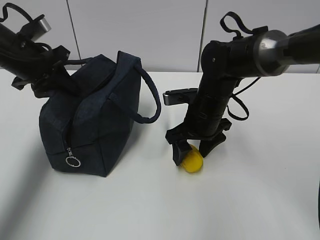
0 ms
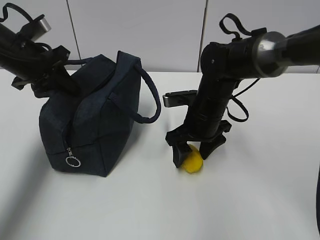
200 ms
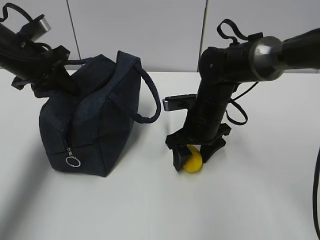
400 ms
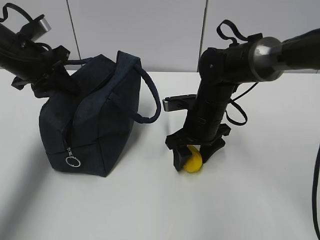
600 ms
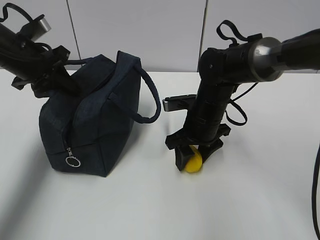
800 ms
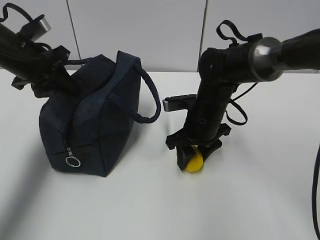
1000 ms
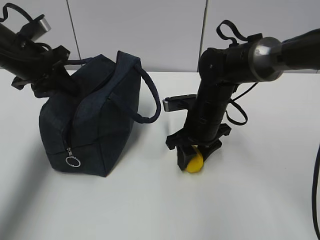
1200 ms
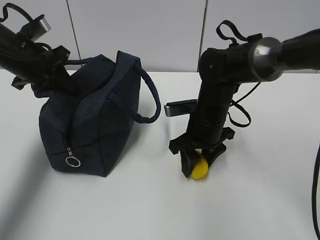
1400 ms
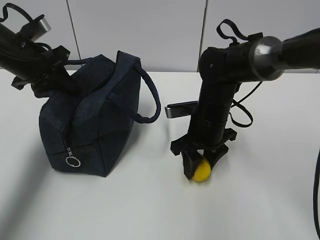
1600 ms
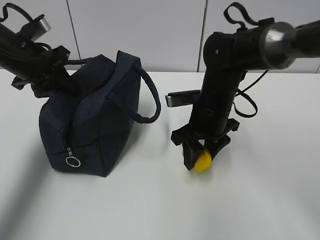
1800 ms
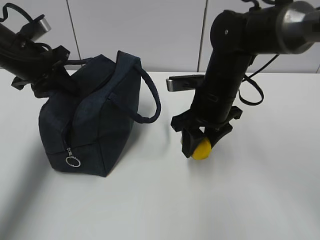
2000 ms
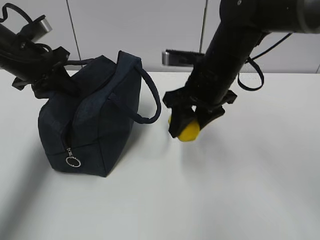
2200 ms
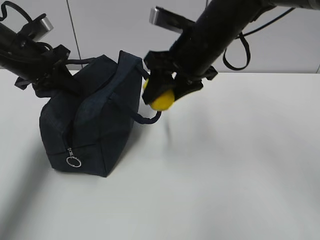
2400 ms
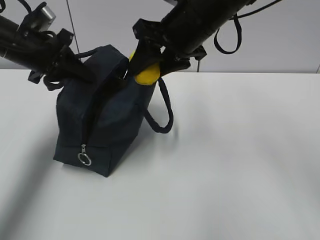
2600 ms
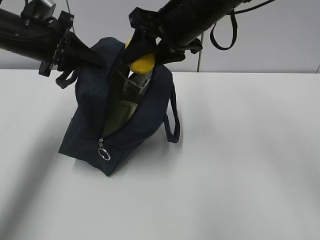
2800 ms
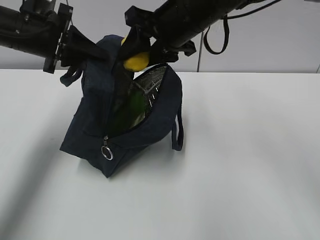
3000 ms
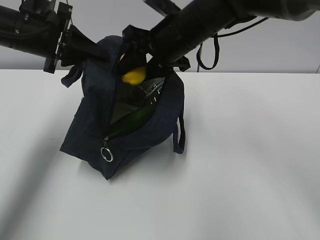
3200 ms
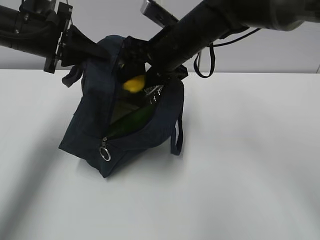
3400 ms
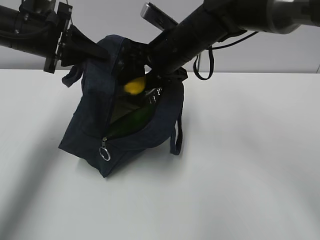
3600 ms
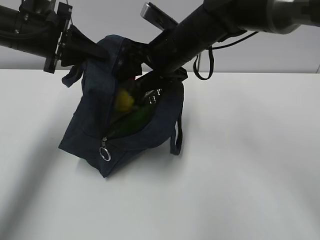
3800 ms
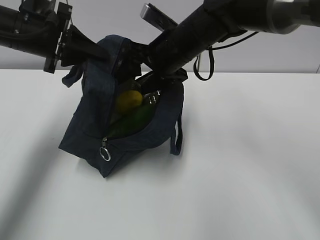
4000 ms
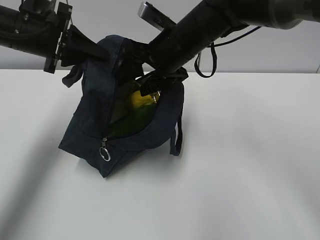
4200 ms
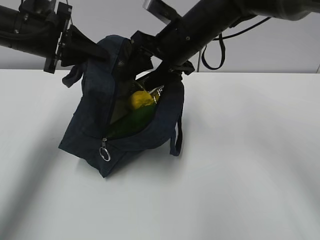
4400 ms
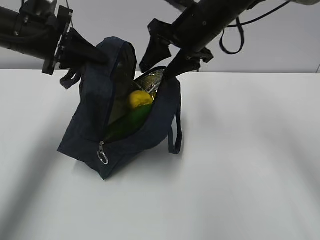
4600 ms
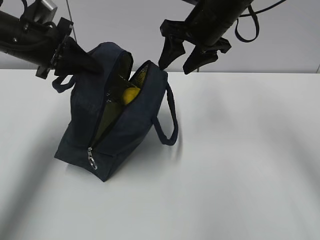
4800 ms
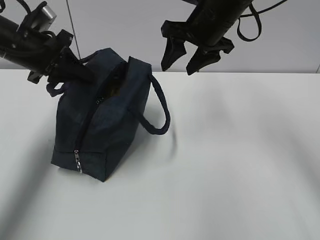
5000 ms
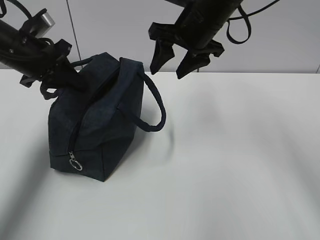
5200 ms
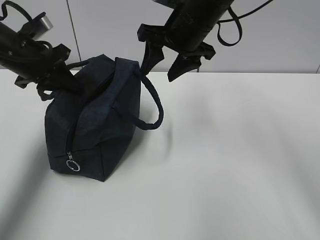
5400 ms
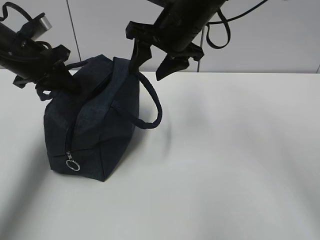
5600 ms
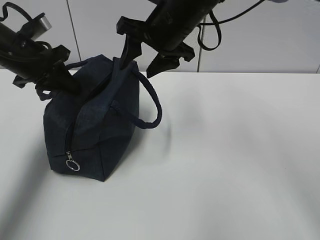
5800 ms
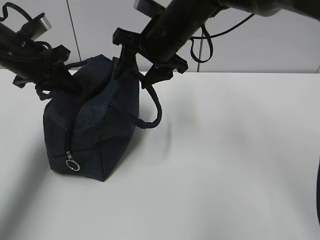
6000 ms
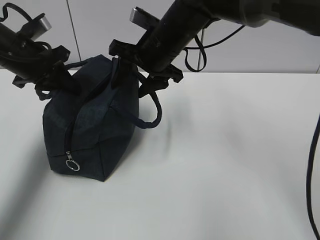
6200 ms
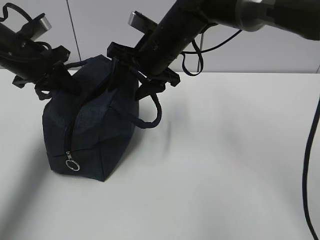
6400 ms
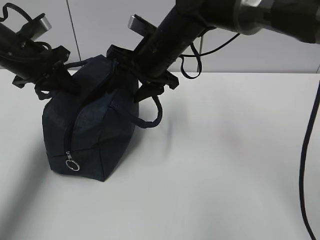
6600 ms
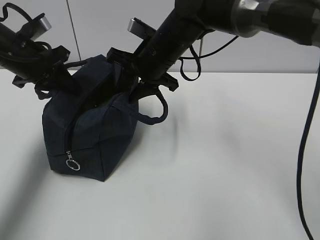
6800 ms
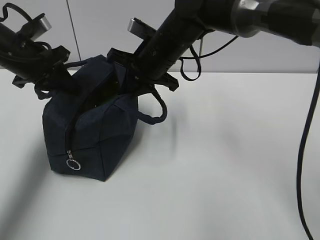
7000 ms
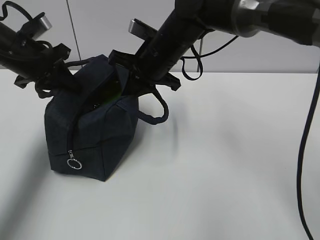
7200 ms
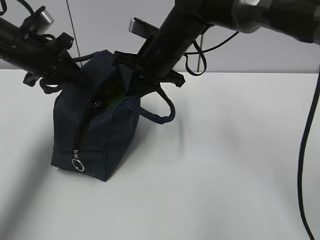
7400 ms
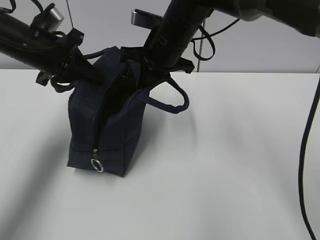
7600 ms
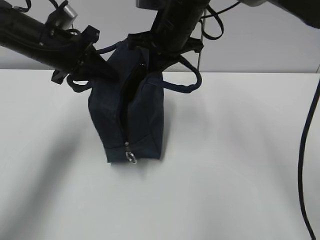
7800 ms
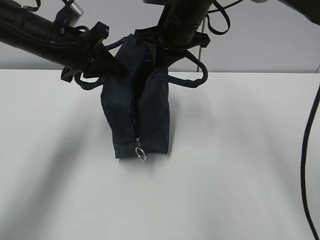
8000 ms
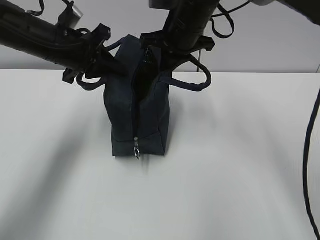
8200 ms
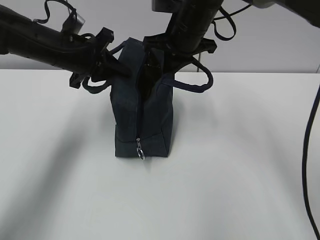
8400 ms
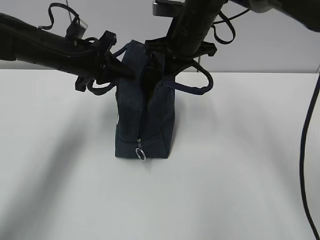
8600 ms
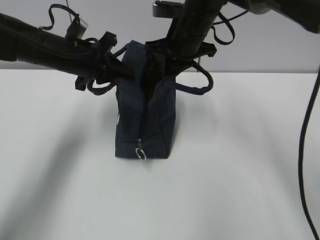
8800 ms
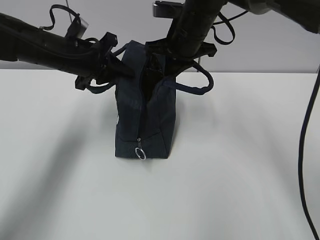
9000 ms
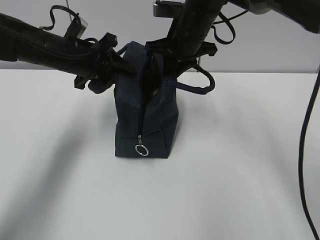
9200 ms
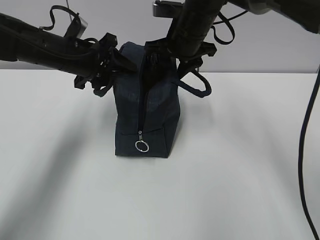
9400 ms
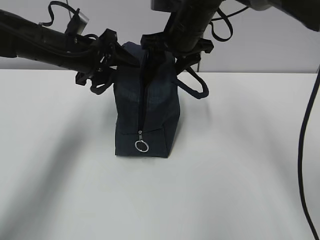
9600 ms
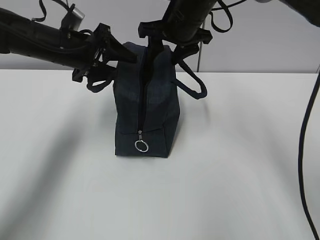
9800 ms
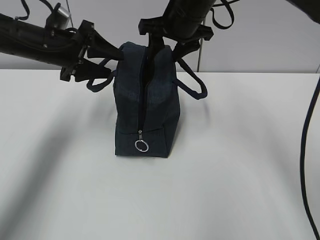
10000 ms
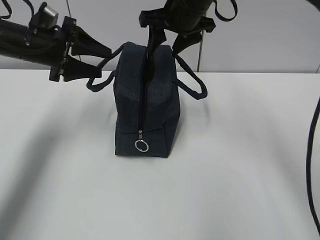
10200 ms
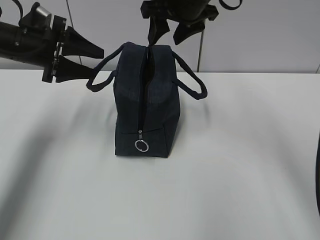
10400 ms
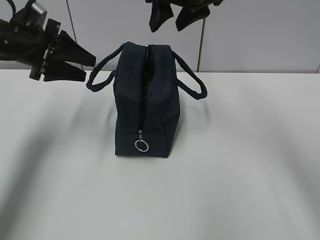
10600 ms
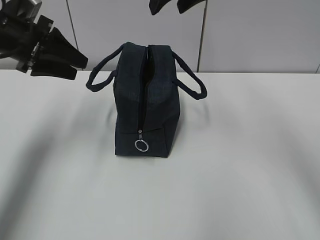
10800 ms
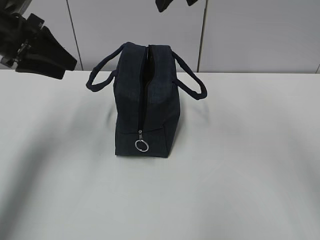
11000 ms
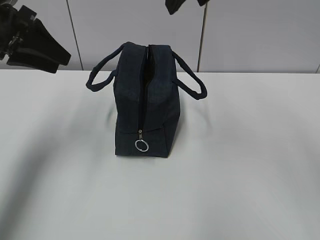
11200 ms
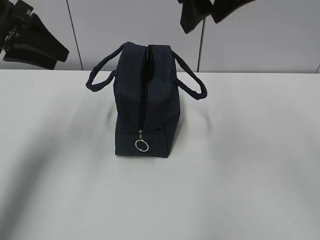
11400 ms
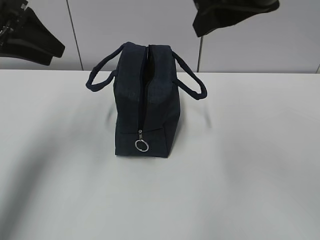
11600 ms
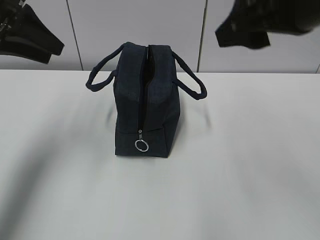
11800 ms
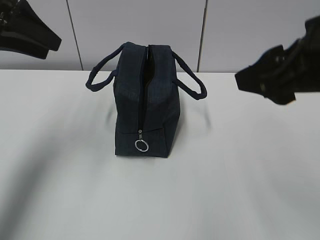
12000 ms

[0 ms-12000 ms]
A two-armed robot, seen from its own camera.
0 ms to 1600 ms: The grippers make only small movements.
1600 ms to 3000 ms: The right gripper heads upward, covering about 20 cm.
6000 ms to 7600 ms: The right gripper closes.
7600 ms to 9000 ms: The left gripper moves about 5 cm.
9000 ms to 10400 ms: The right gripper heads upward, covering some 5 cm, and opens its fingers, while the left gripper shifts roughly 10 cm to the left, and opens up.
10400 ms to 12000 ms: The left gripper travels upward and backward by roughly 10 cm; the right gripper heads backward, covering approximately 25 cm.

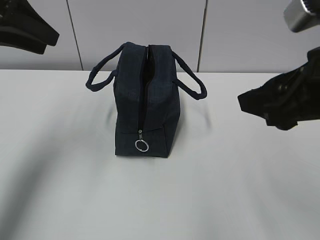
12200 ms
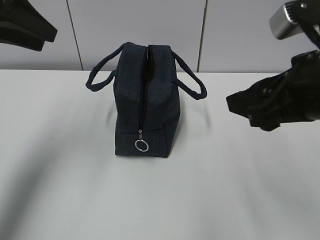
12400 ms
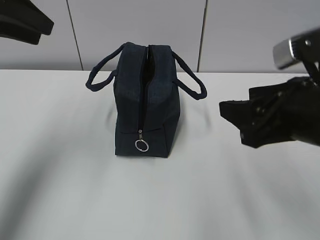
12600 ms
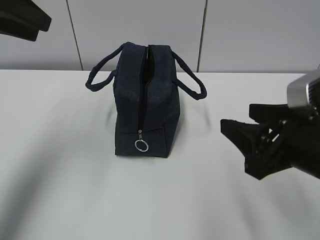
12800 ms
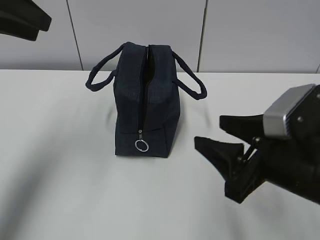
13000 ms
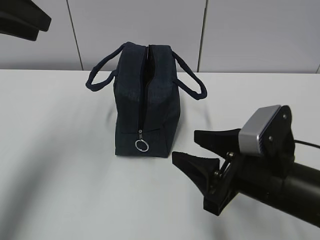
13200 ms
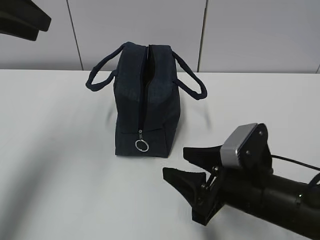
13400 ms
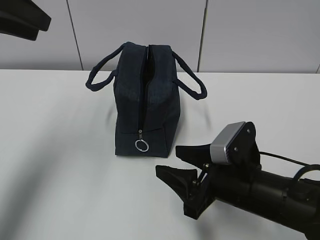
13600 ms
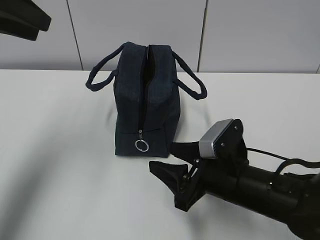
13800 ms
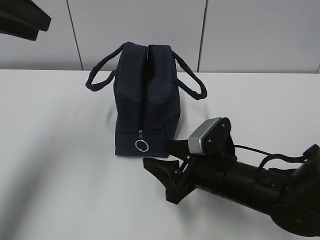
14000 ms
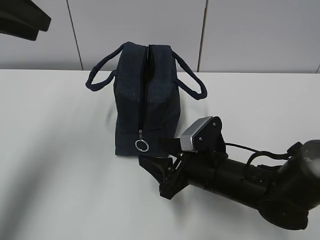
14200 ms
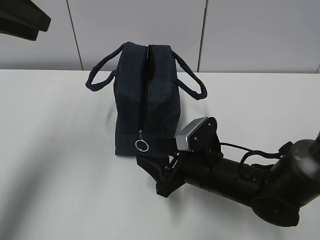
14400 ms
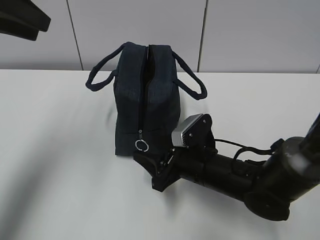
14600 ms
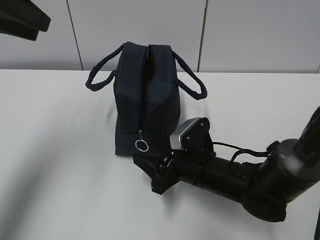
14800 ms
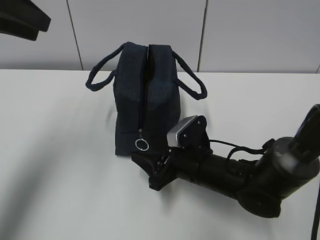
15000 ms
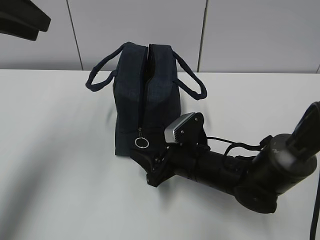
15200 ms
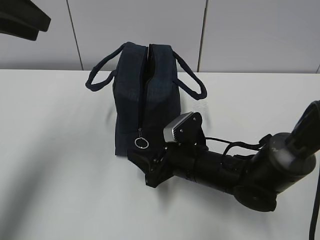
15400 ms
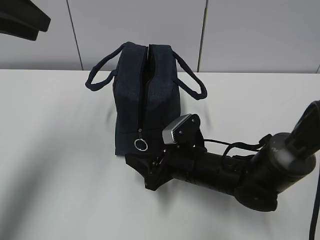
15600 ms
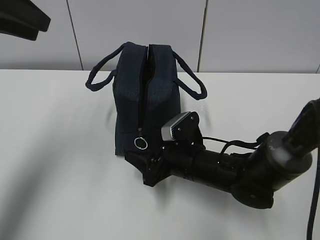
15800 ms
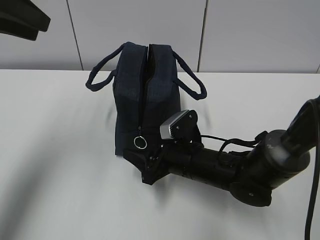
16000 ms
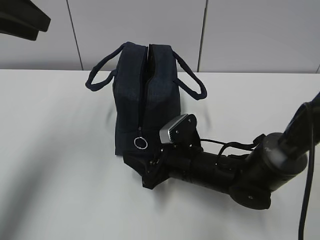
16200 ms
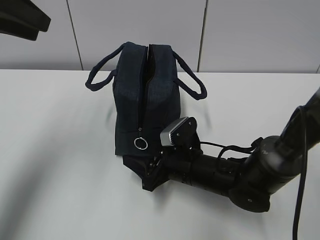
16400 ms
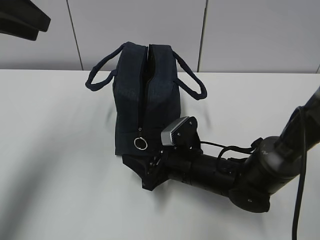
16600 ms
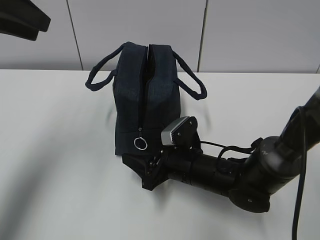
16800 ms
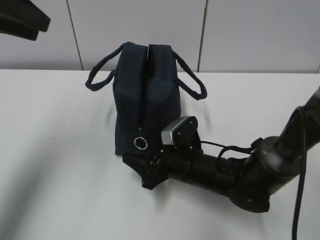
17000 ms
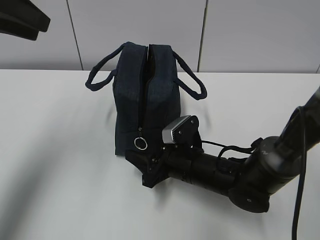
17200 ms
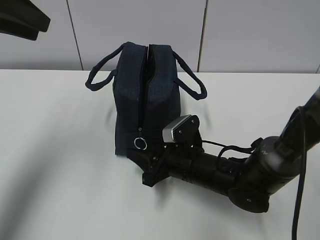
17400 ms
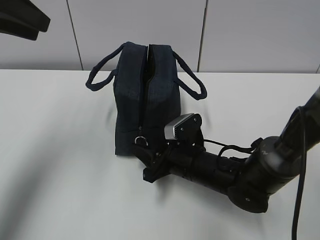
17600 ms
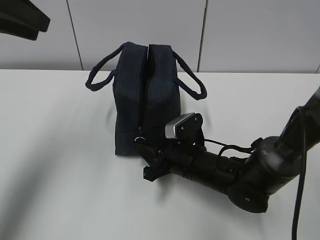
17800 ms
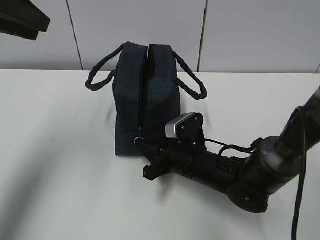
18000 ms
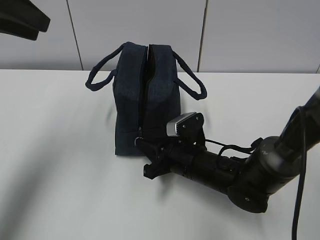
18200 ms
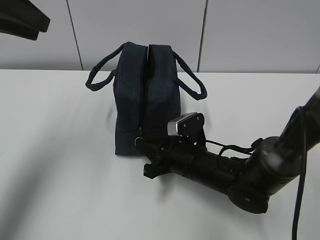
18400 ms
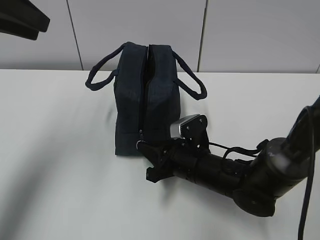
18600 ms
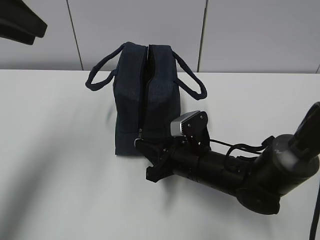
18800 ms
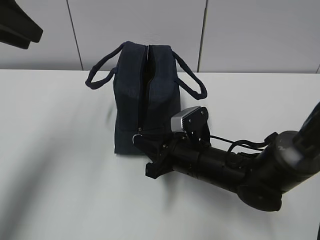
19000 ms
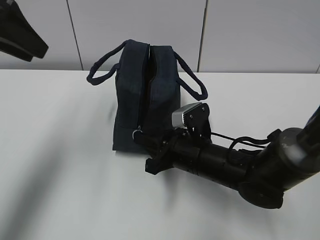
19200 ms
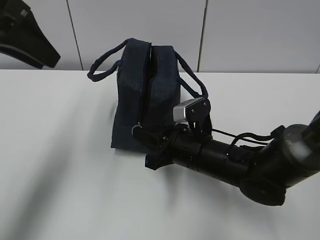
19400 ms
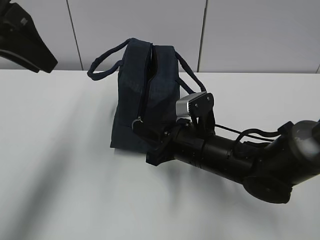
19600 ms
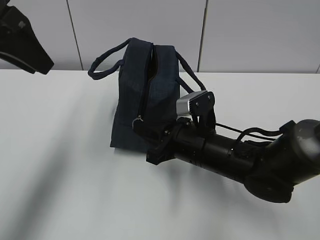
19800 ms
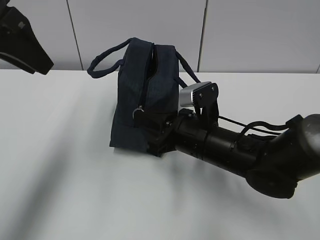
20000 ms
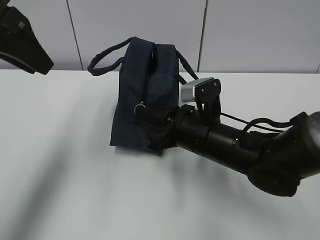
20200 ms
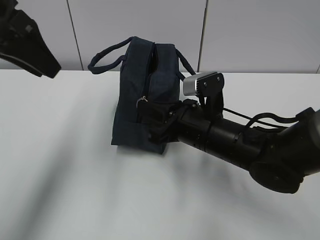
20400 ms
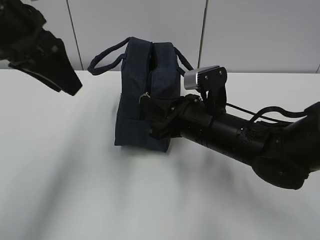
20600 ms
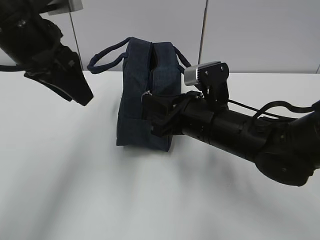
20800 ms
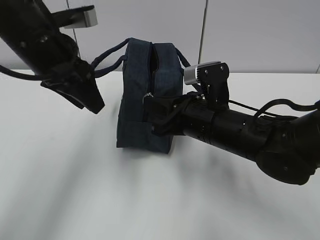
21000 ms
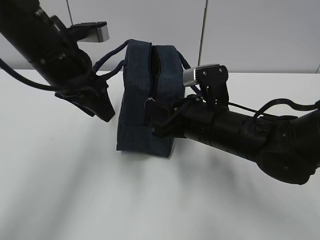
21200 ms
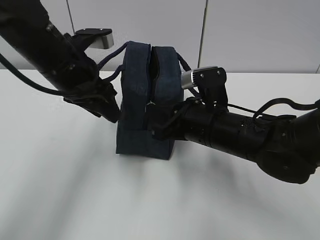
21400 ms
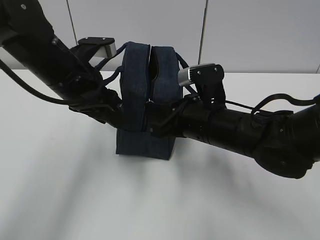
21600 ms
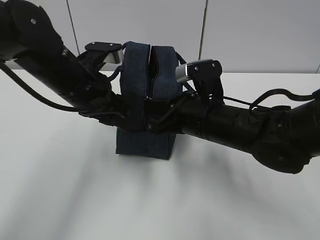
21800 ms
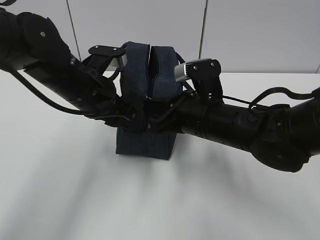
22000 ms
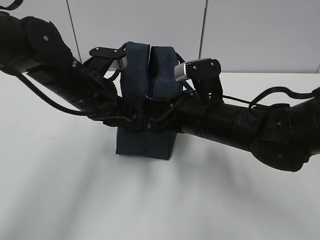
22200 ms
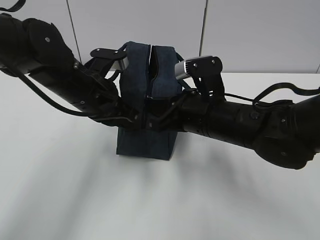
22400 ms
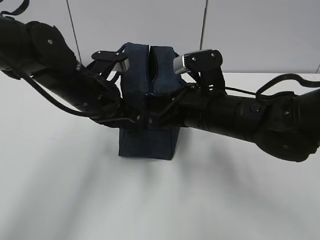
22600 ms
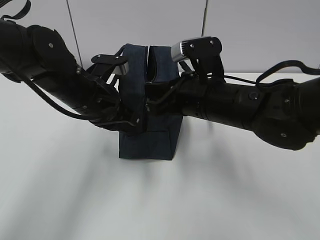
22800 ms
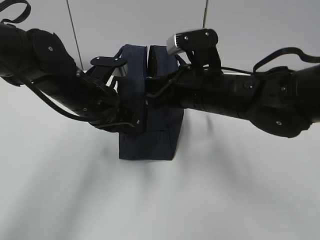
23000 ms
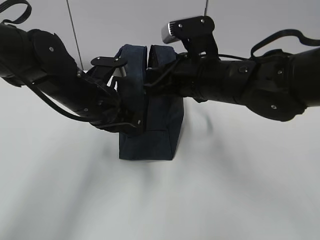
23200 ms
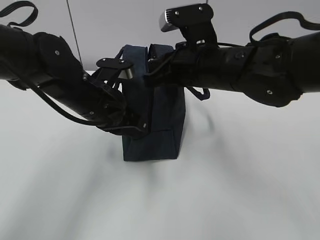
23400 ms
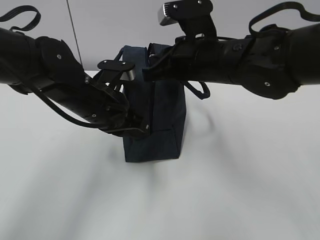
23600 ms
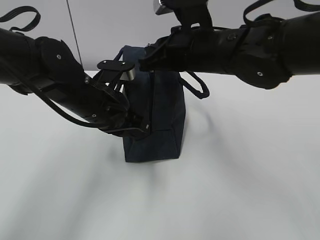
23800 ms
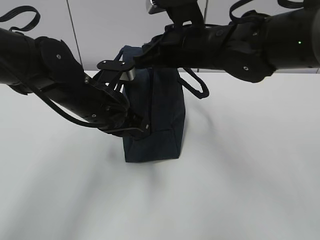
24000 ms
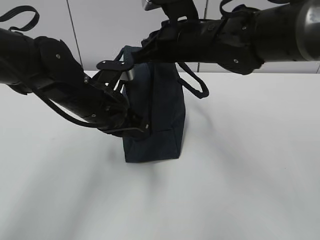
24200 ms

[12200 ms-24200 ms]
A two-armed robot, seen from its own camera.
Step, 14800 ms to 20200 ms: Pull the zipper with your right hand.
Step, 20400 ms to 21800 ms: Grab the lunch bag with your left hand.
12200 ms to 13800 ms: The right gripper travels downward by about 20 cm.
13800 ms to 15200 ms: The right gripper travels forward by some 5 cm.
15200 ms to 16600 ms: The grippers move only a little.
16600 ms to 18200 ms: The right gripper closes.
18200 ms to 19800 ms: The right gripper moves upward, roughly 5 cm.
19800 ms to 21200 ms: The left gripper shifts approximately 10 cm downward and to the right.
21200 ms to 22600 ms: The left gripper goes approximately 5 cm downward, and closes its fingers.
22600 ms to 24200 ms: The right gripper goes about 10 cm forward and upward.
